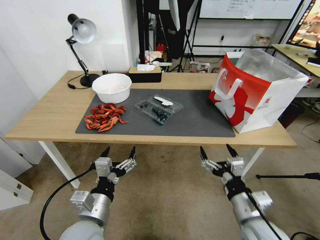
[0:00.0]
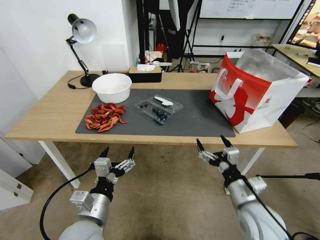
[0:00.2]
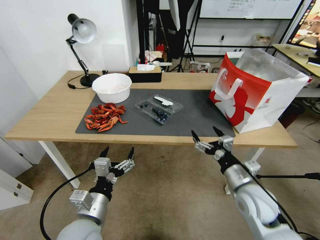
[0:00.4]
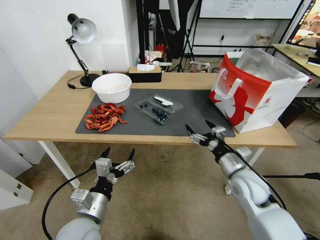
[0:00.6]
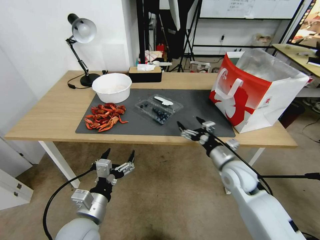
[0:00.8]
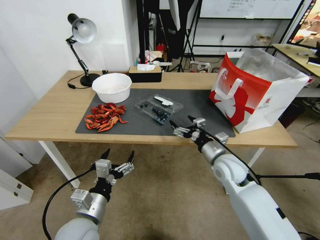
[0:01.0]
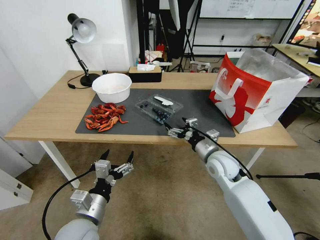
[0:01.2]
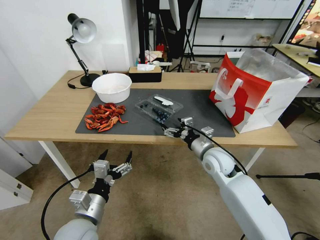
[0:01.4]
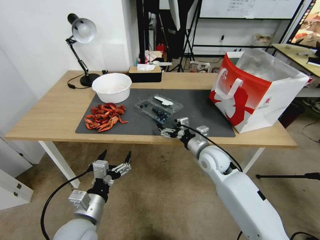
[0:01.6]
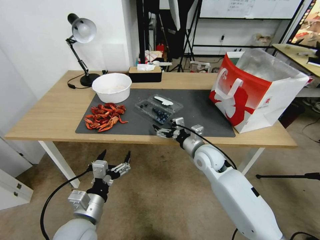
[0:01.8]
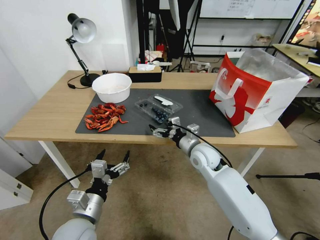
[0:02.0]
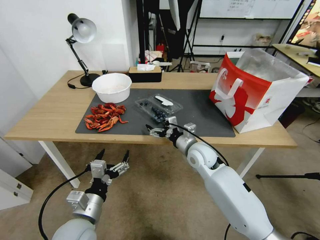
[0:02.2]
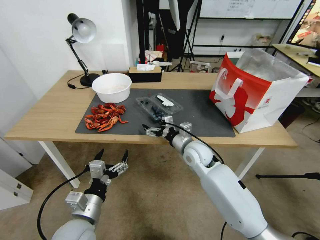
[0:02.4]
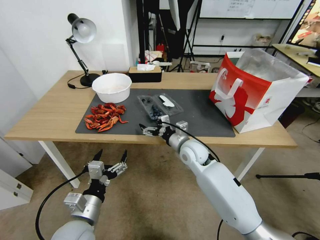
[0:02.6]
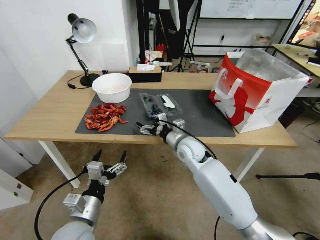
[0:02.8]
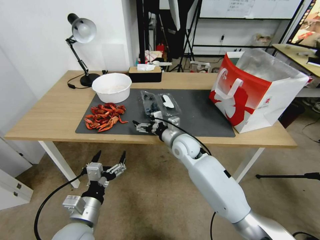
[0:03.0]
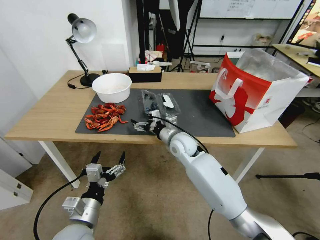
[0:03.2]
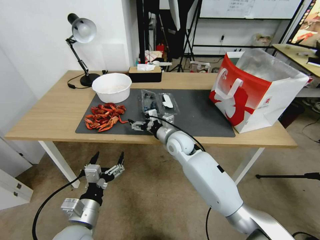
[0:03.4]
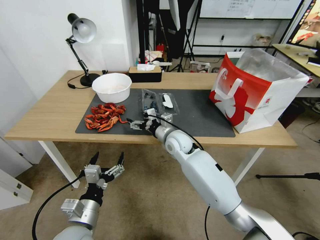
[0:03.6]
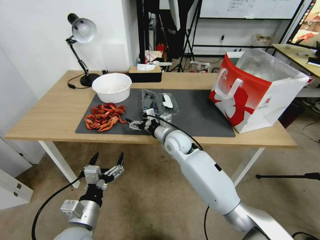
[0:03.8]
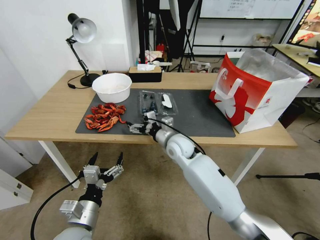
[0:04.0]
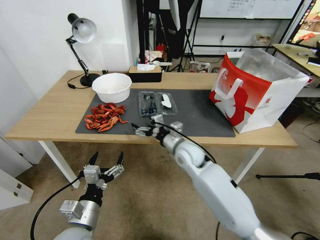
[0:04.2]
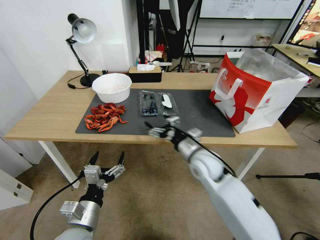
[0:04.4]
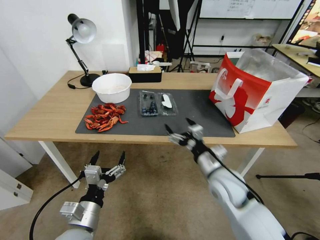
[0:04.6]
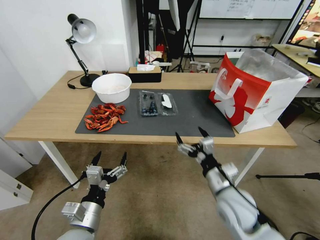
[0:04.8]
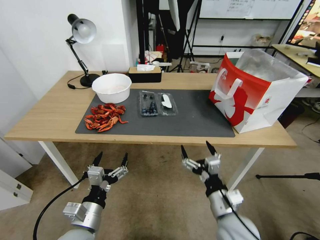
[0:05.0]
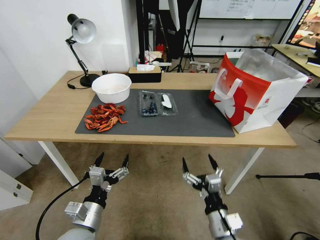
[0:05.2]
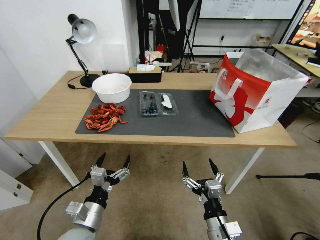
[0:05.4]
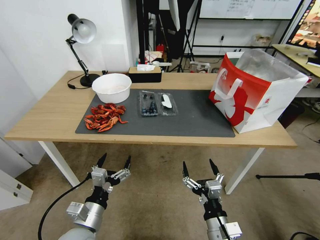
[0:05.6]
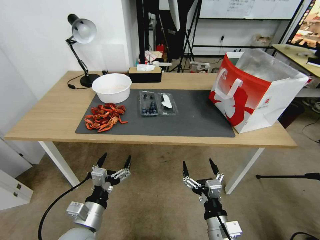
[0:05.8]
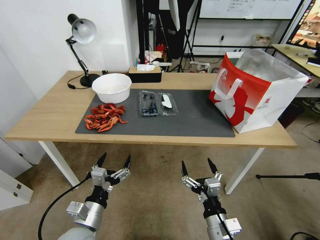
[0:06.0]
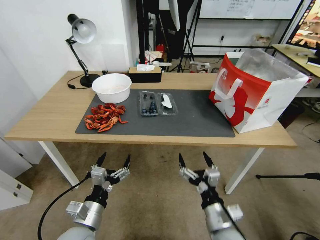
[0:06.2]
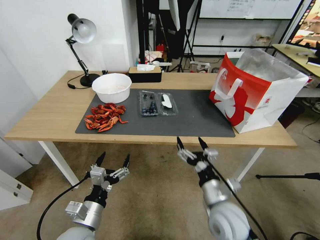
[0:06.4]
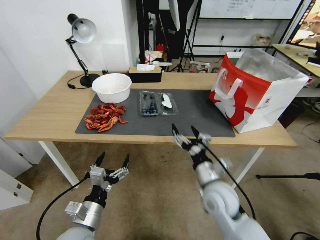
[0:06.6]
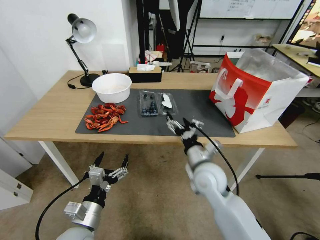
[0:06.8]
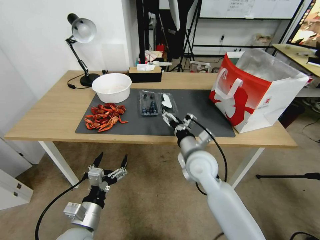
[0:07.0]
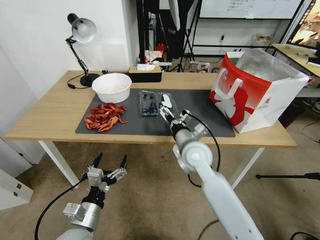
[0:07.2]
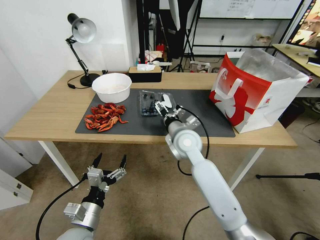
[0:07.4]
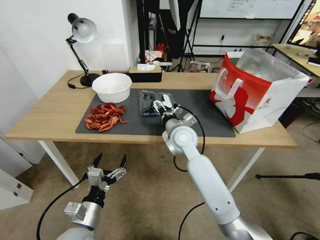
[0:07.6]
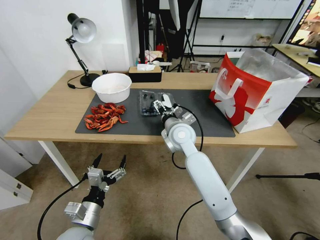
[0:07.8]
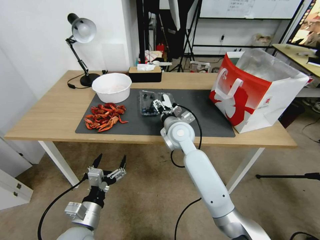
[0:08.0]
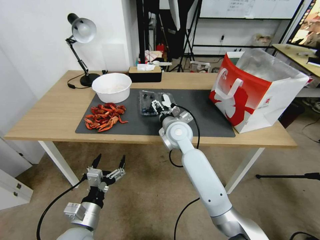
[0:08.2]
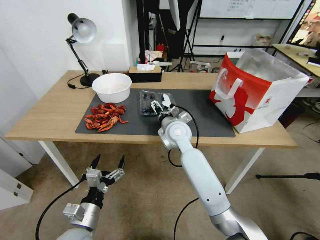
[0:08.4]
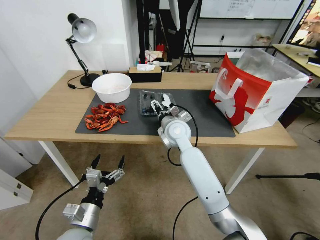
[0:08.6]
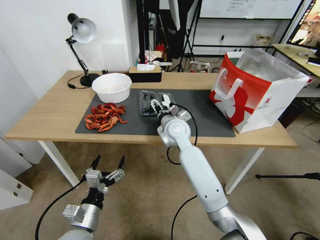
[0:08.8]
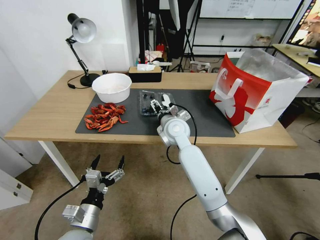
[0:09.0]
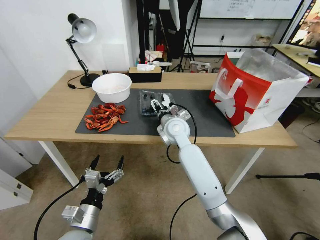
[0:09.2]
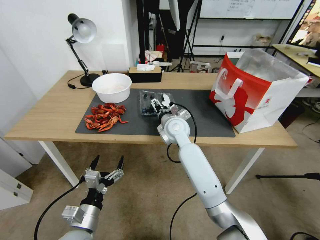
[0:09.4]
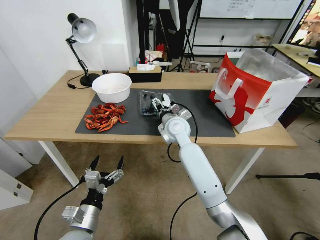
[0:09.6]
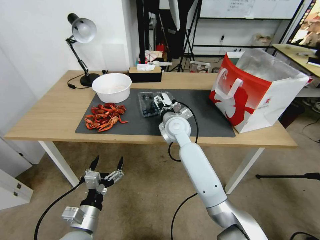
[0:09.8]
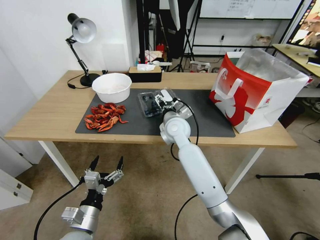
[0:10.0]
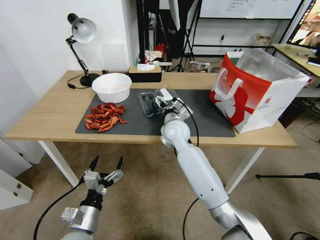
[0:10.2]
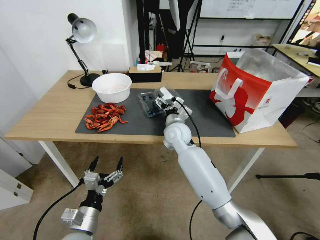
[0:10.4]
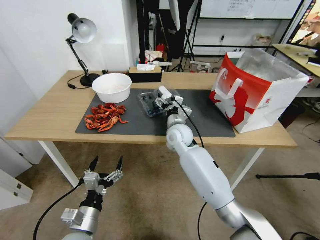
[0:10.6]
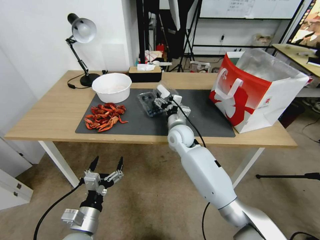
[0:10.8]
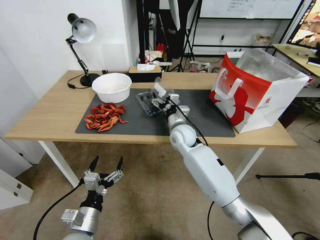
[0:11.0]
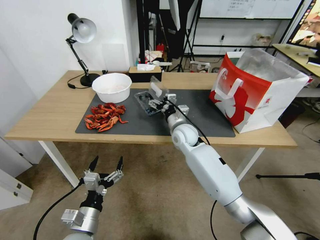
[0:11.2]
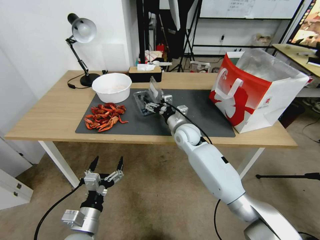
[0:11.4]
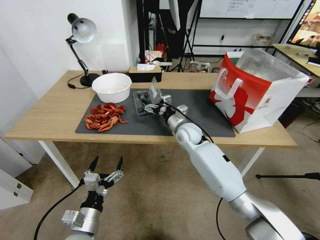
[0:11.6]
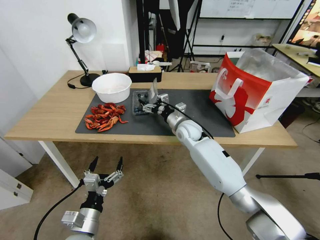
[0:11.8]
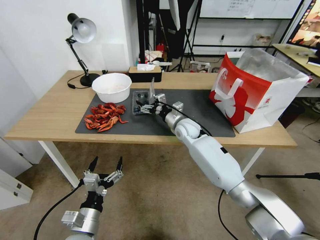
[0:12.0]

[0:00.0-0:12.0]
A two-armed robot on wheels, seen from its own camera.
Task of the whole recording: Close the takeout container lid, then place the container into the takeout bag.
0:00.0 to 0:01.6: The right gripper shifts roughly 25 cm forward.
0:01.6 to 0:03.0: The right gripper heads to the left, covering about 10 cm.
0:03.0 to 0:04.4: The right gripper heads backward and to the right, covering about 10 cm.
0:04.4 to 0:06.0: The right gripper is displaced backward and downward by roughly 25 cm.
0:06.0 to 0:07.6: The right gripper heads forward and upward, covering about 30 cm.
0:07.6 to 0:09.0: The grippers stay close to where they were, moving slightly.
0:10.4 to 0:12.0: The right gripper moves approximately 5 cm.

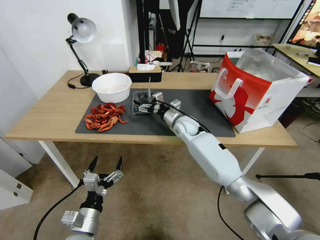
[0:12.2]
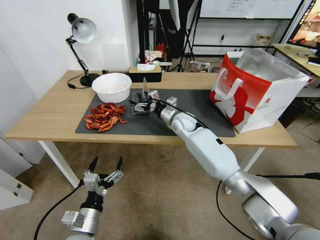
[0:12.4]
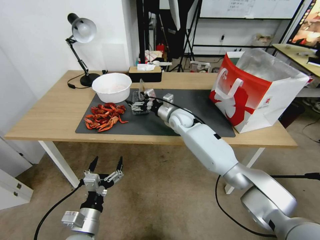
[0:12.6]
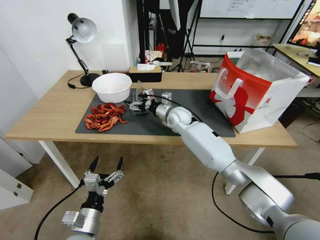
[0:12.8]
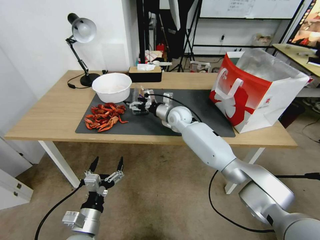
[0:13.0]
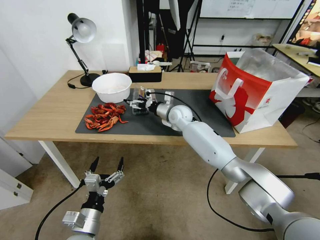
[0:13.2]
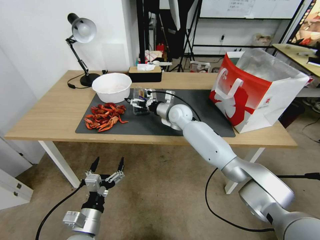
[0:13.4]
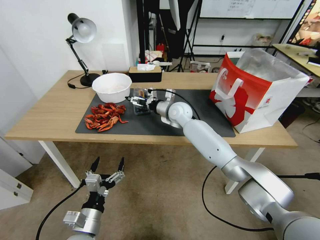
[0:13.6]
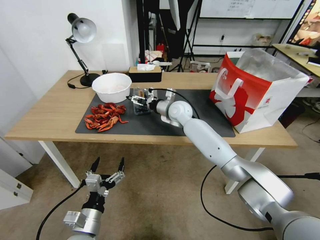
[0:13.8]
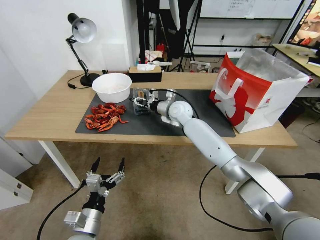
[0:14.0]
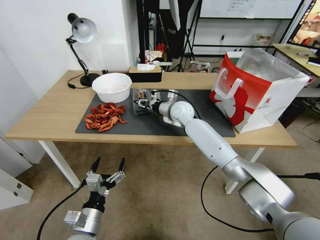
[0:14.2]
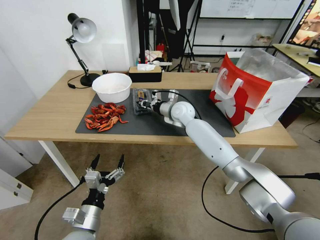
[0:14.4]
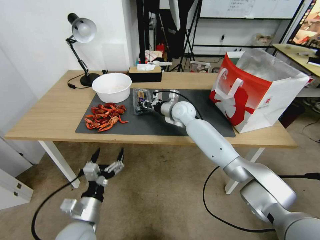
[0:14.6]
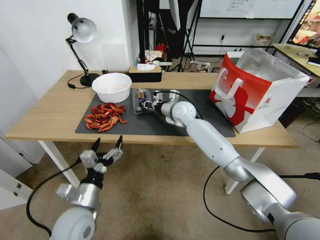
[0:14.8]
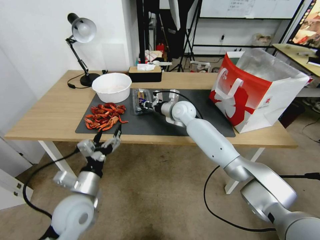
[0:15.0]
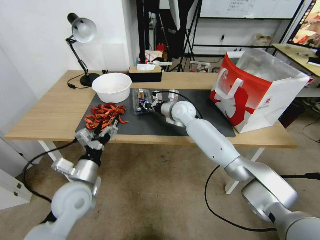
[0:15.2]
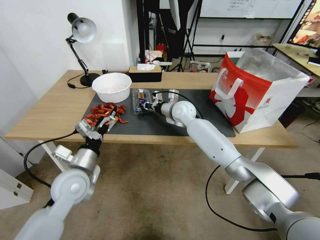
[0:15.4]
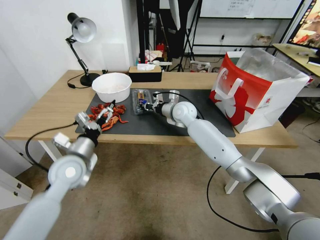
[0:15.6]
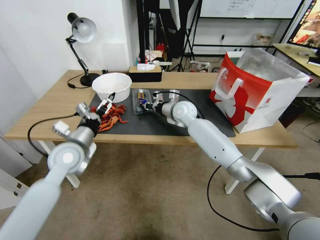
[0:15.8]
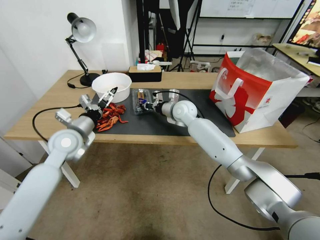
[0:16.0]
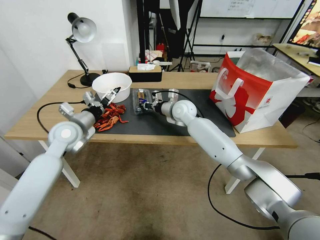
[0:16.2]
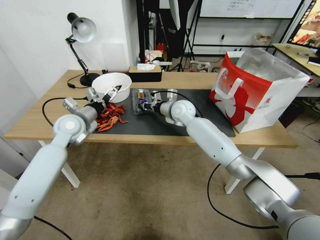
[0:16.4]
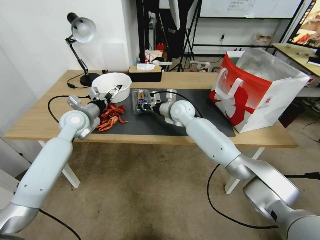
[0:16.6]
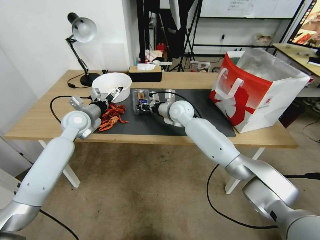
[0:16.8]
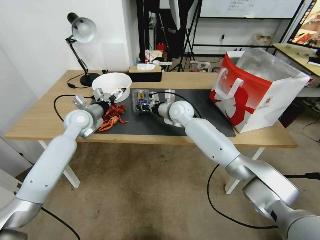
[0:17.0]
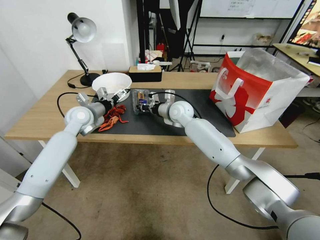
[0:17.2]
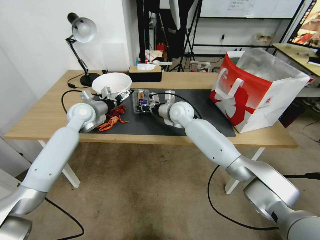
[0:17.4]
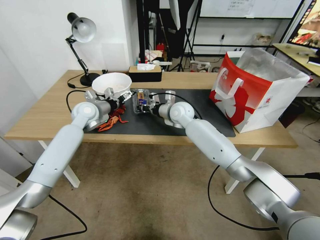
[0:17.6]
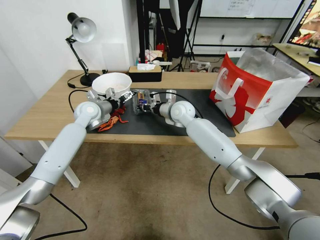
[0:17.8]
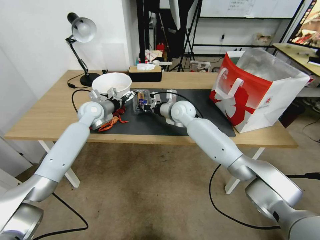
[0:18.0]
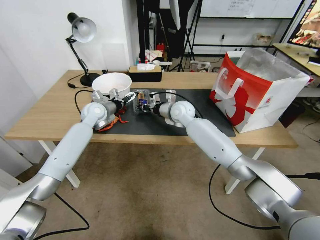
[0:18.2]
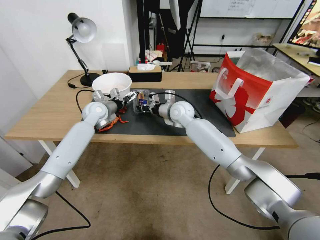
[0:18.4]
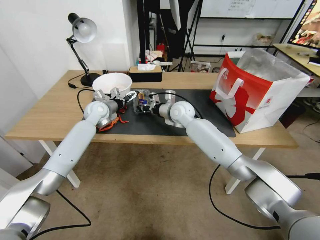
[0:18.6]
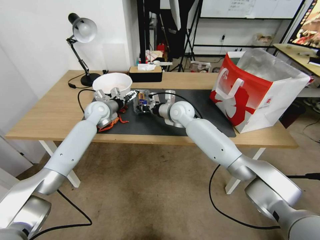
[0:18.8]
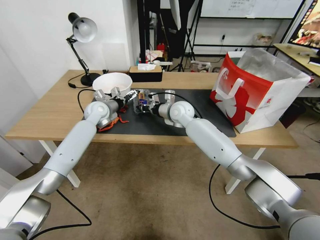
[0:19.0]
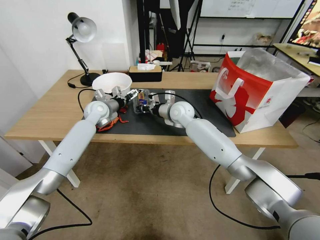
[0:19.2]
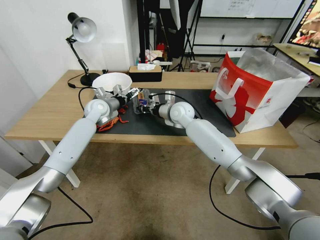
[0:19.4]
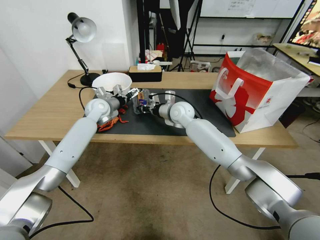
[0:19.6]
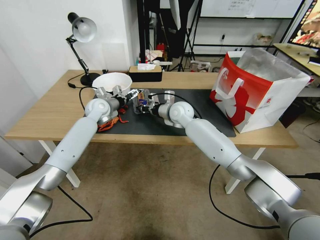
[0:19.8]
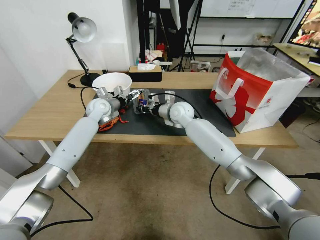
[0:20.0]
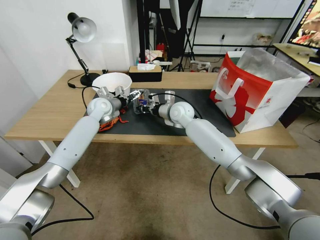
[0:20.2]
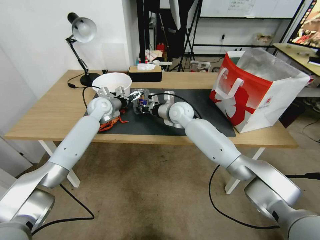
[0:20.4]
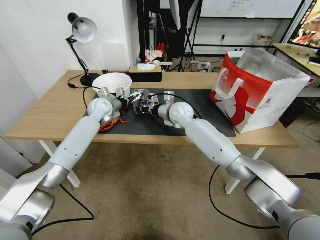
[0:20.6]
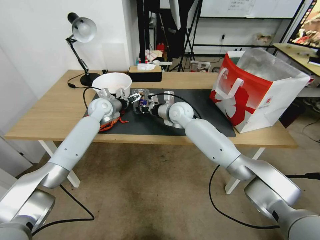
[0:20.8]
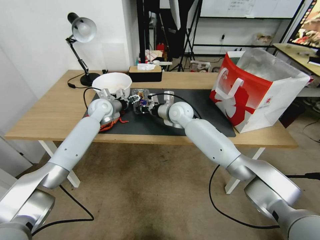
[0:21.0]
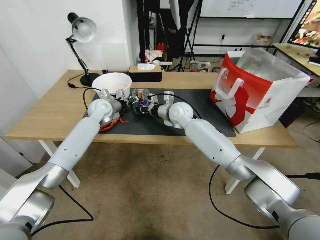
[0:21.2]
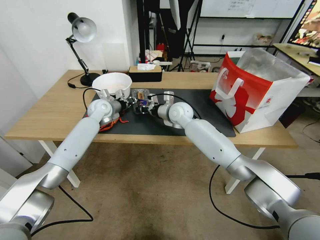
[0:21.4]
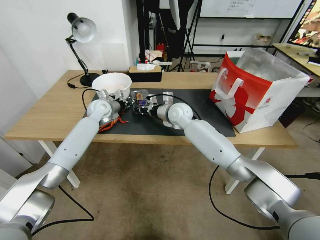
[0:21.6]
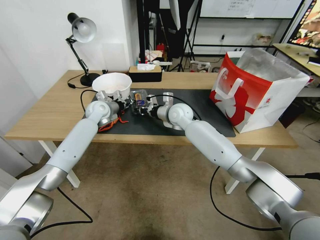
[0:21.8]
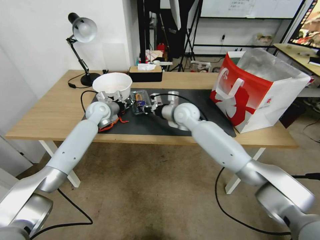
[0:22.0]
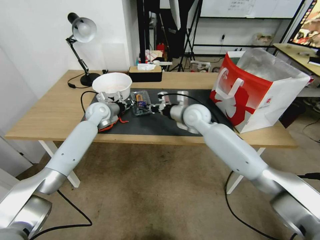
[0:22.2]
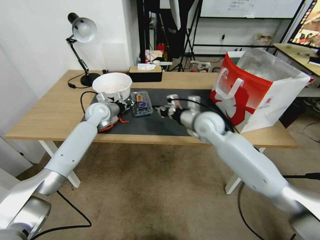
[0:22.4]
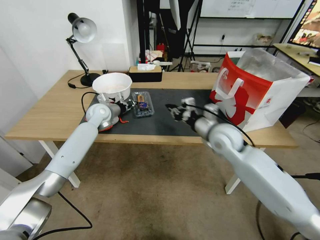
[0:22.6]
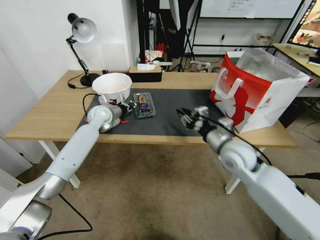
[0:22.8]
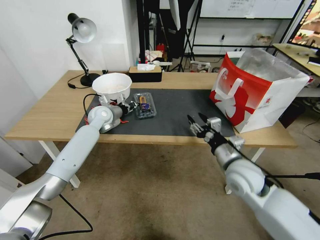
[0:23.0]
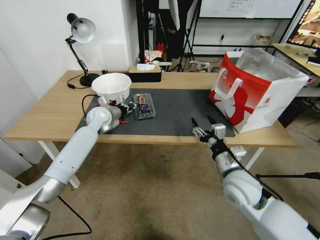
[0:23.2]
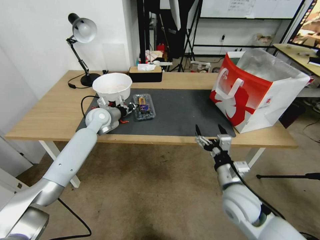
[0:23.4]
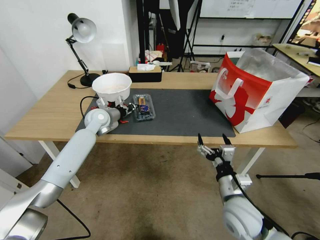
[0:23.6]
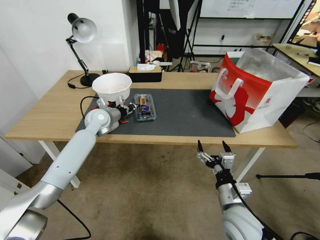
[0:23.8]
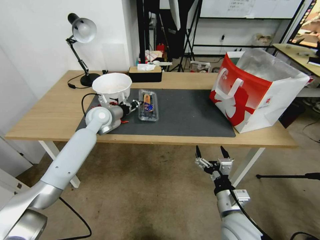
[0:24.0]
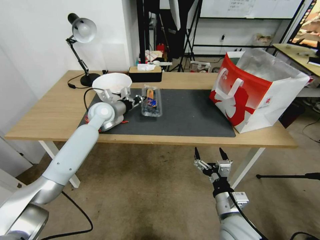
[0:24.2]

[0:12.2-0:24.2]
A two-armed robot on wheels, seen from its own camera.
Task of the whole recording: Close the takeout container lid, then place the container into the takeout bag.
0:12.2 to 0:13.8: The right gripper changes place by some 5 cm.
0:13.8 to 0:15.2: The right gripper closes its fingers, while the left gripper goes approximately 15 cm forward and upward.
0:15.2 to 0:16.6: The left gripper shifts about 20 cm forward.
0:16.6 to 0:18.2: The left gripper travels forward by some 5 cm.
0:18.2 to 0:19.8: There are only small adjustments of the grippers.
0:19.8 to 0:21.2: The left gripper closes up.
0:21.2 to 0:22.6: The left gripper closes up, while the right gripper moves backward and to the right, approximately 20 cm.
0:22.6 to 0:24.2: The left gripper moves roughly 5 cm, while the right gripper is displaced backward and downward by about 25 cm, and opens.
